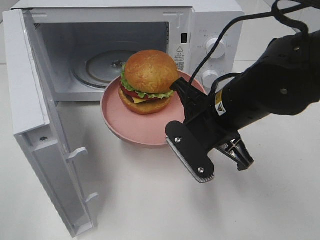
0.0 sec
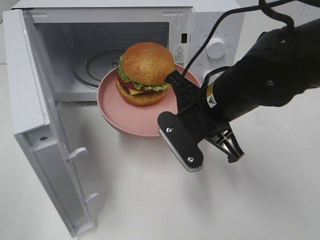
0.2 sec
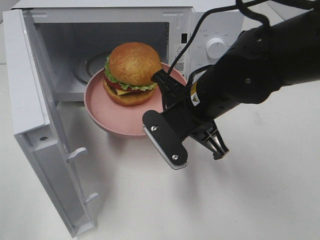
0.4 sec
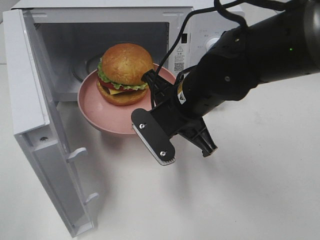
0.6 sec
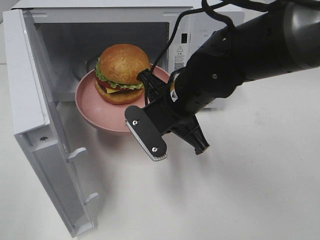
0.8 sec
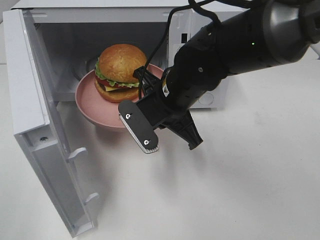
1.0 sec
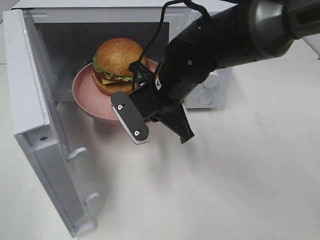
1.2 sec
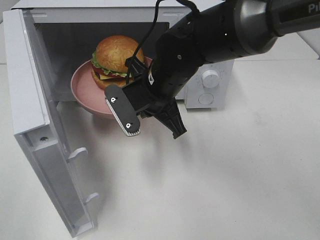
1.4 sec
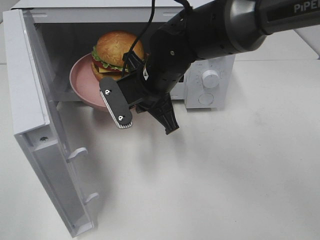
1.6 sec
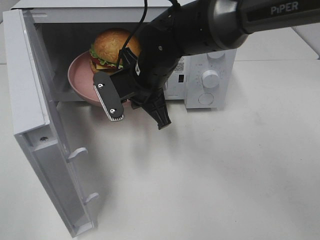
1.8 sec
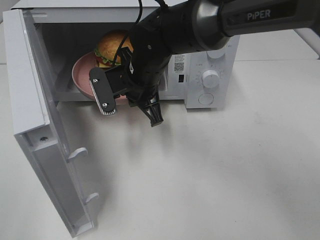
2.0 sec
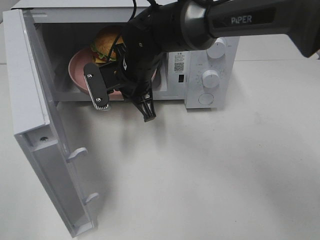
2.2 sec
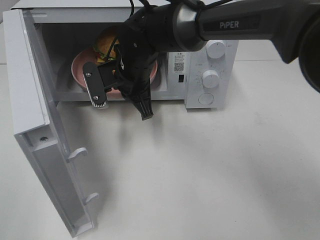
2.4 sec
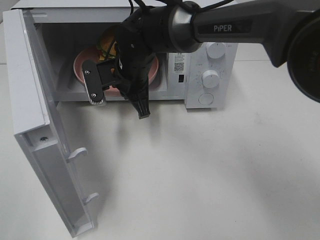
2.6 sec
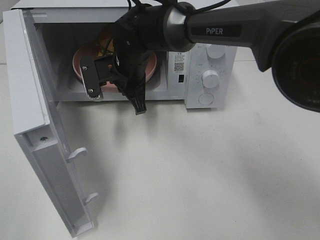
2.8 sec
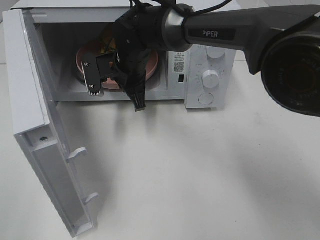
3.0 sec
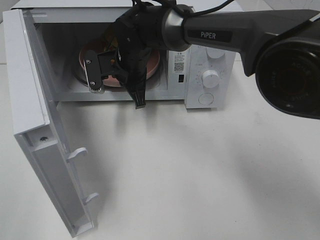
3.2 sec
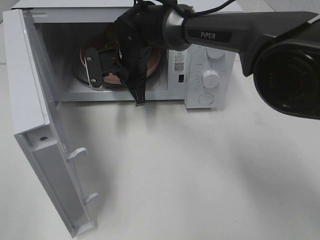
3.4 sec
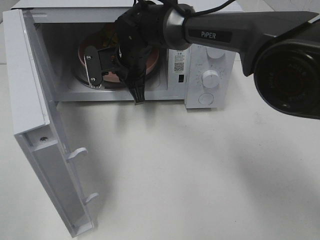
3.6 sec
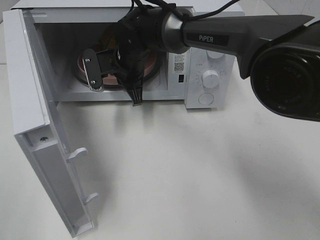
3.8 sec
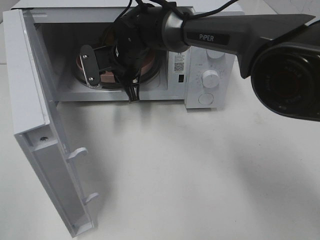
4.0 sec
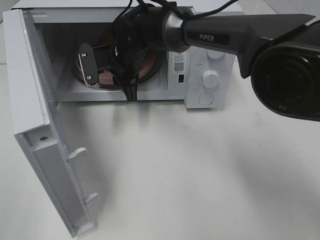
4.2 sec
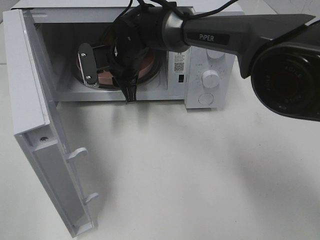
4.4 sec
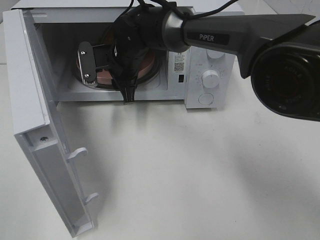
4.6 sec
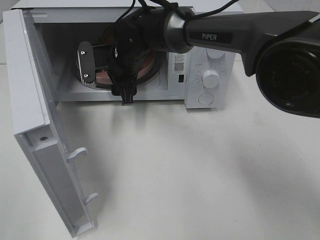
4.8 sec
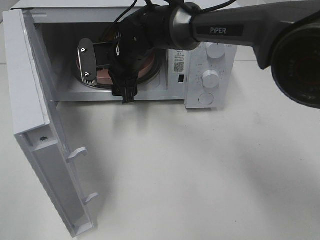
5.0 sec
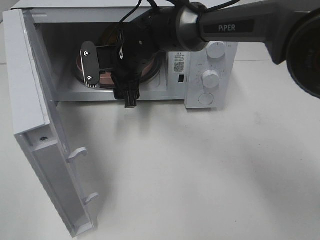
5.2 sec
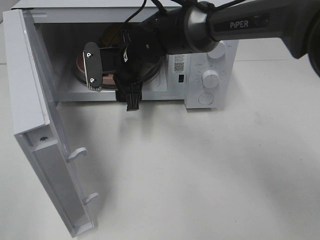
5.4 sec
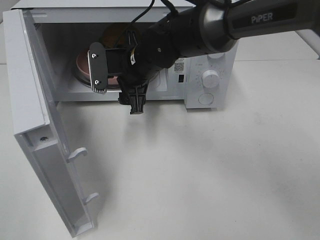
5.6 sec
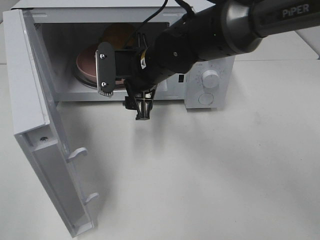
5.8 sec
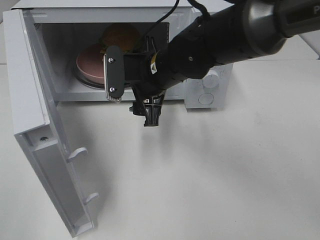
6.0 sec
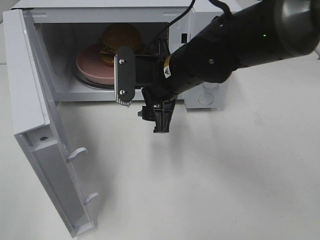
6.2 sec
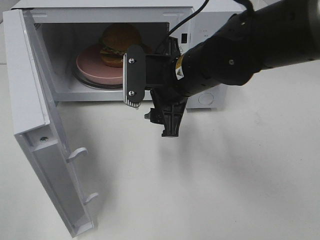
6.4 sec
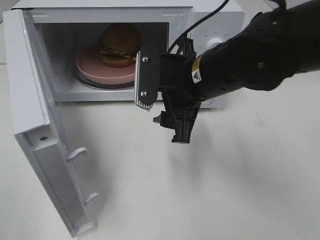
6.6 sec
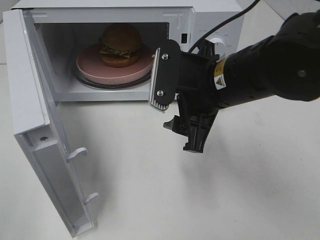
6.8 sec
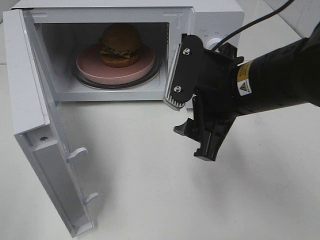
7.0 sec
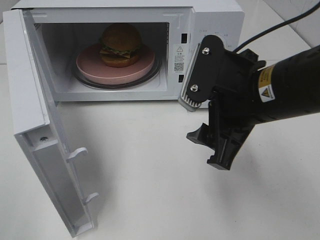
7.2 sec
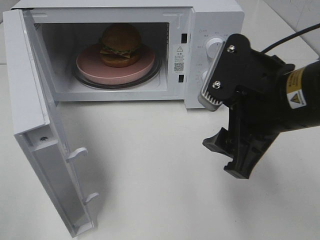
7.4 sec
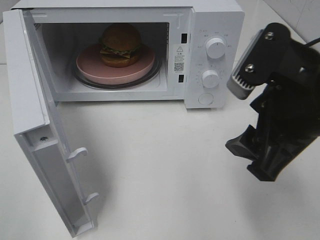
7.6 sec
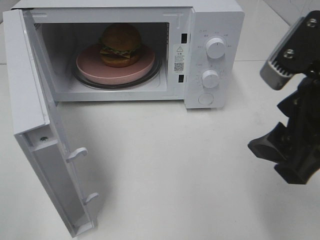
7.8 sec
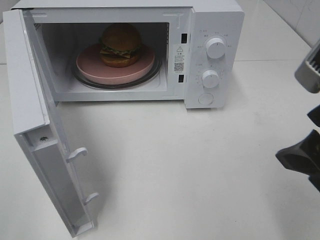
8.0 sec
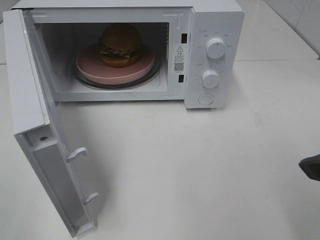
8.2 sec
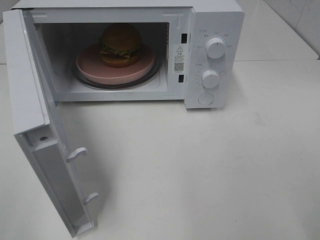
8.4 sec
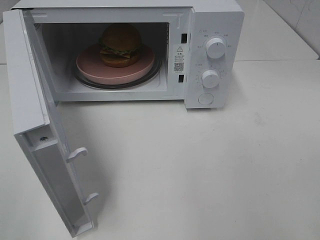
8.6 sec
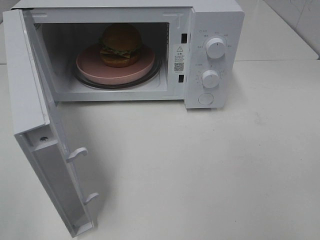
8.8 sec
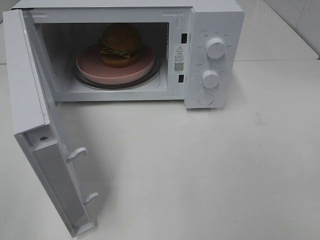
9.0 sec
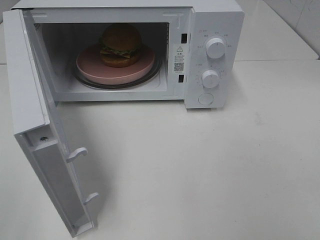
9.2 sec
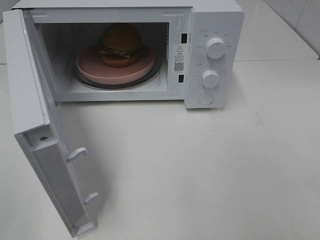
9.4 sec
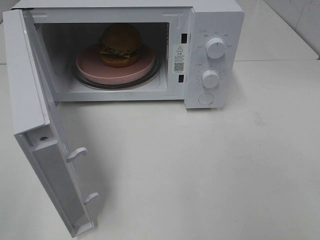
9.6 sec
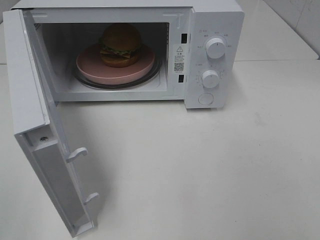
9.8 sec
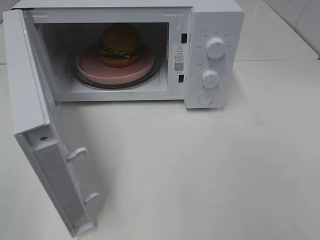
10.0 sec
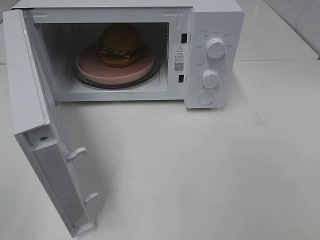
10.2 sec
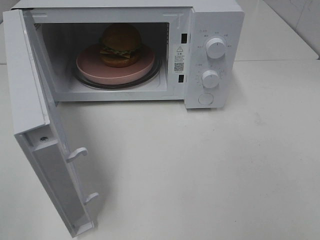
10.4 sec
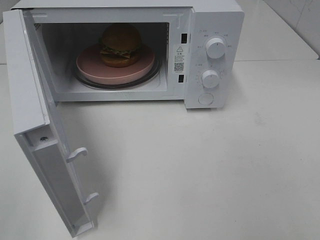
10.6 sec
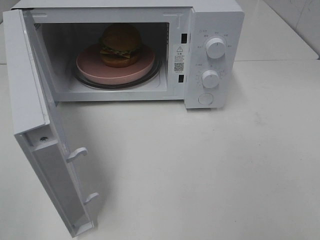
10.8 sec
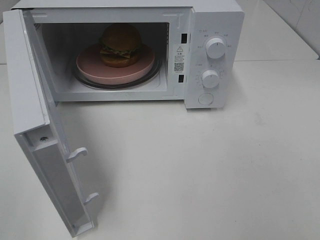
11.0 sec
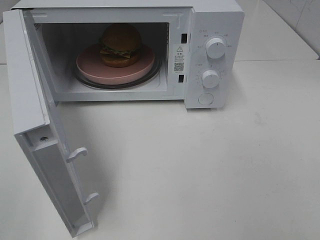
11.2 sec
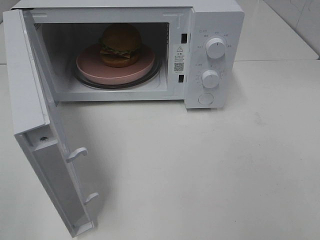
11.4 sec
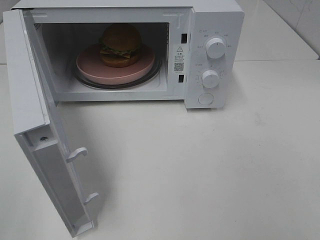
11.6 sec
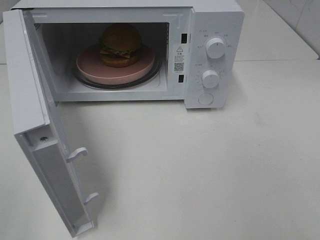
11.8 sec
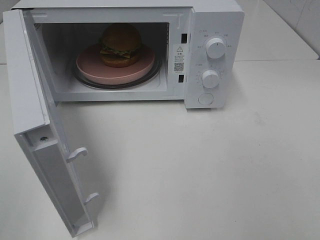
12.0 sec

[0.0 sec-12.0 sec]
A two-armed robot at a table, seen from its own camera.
Task of the whole recording: Heat the burger.
Step, 0.0 sec to 4.2 sec: Right hand: place the plate in the microwave.
0.0 sec to 1.6 sec: The right gripper moves to the left and forward, approximately 15 cm.
1.6 sec to 3.0 sec: The right gripper goes about 10 cm forward.
3.0 sec to 4.4 sec: The right gripper opens.
4.4 sec to 6.0 sec: The right gripper goes approximately 10 cm backward and to the right, and opens.
6.0 sec to 7.6 sec: The right gripper shifts approximately 25 cm backward, to the right and upward.
7.6 sec to 9.0 sec: The right gripper moves backward and to the right, approximately 15 cm.

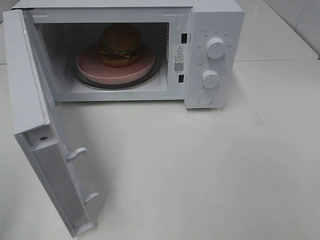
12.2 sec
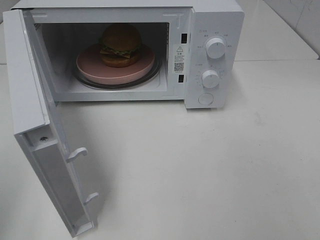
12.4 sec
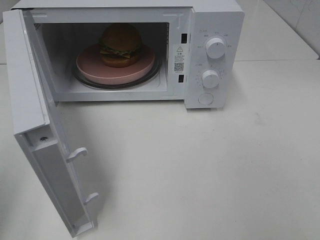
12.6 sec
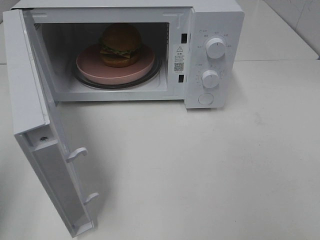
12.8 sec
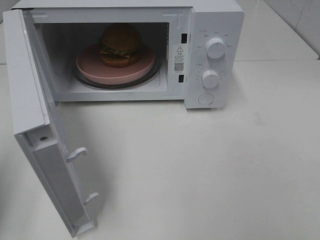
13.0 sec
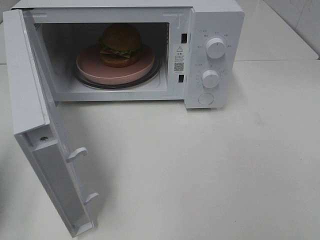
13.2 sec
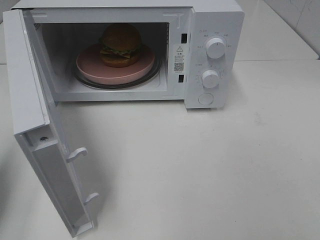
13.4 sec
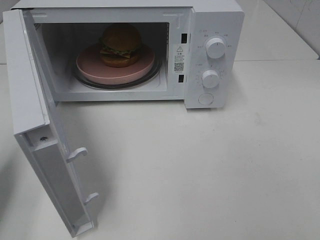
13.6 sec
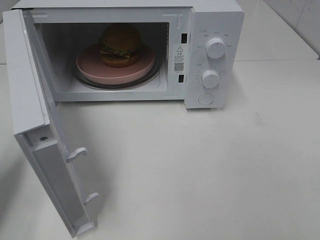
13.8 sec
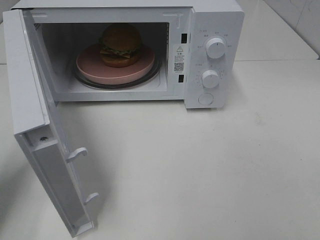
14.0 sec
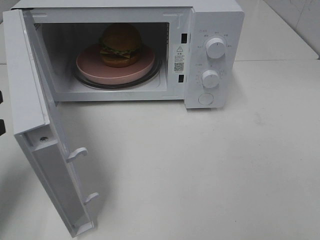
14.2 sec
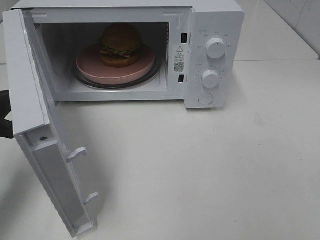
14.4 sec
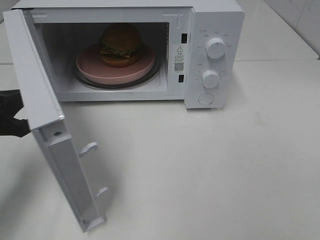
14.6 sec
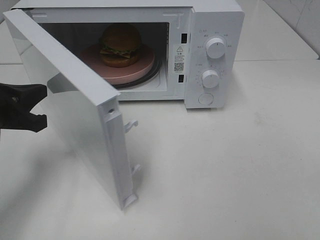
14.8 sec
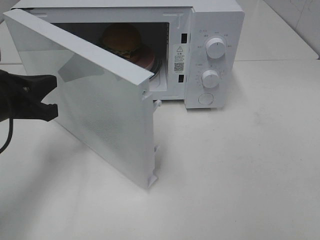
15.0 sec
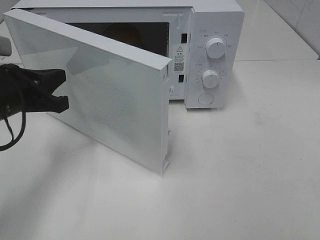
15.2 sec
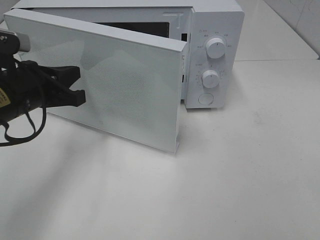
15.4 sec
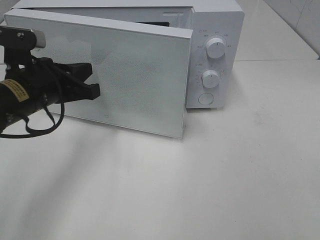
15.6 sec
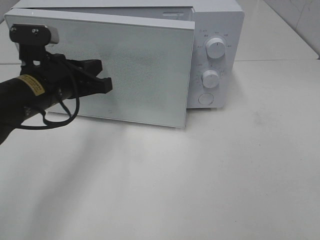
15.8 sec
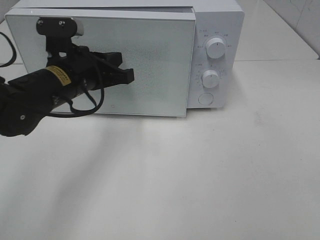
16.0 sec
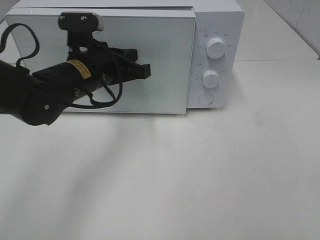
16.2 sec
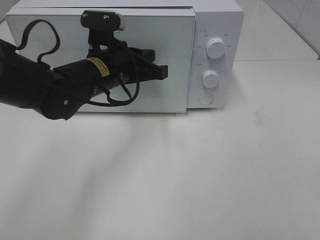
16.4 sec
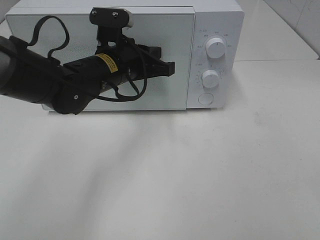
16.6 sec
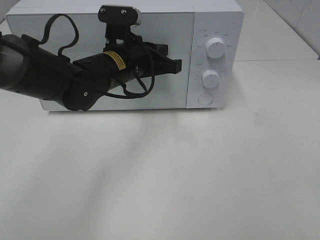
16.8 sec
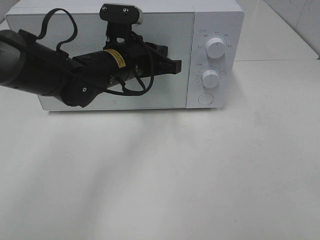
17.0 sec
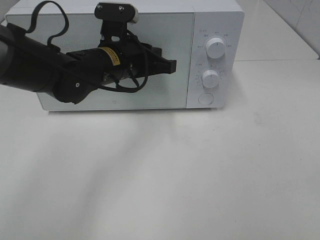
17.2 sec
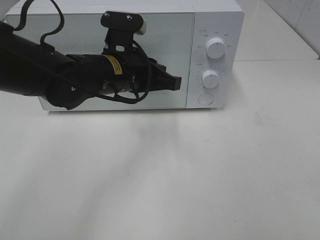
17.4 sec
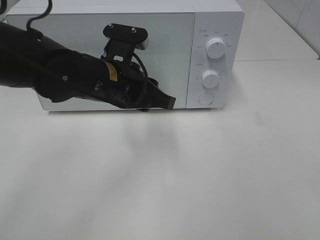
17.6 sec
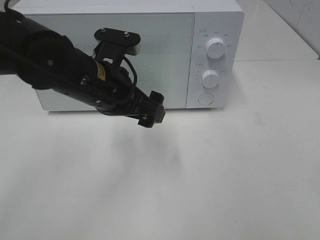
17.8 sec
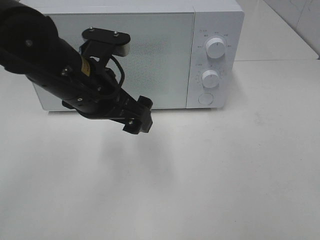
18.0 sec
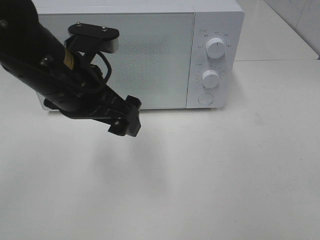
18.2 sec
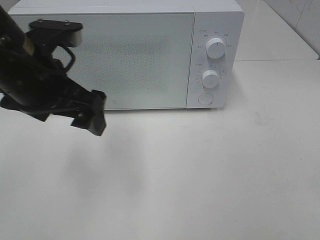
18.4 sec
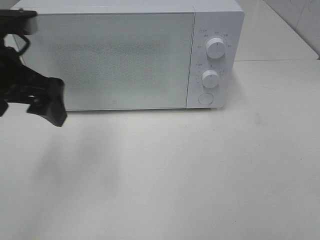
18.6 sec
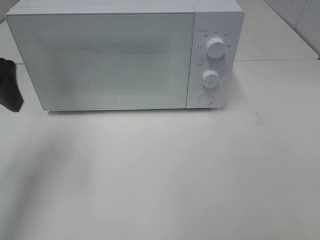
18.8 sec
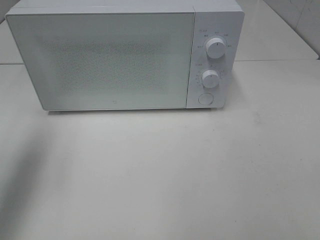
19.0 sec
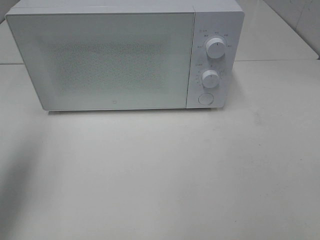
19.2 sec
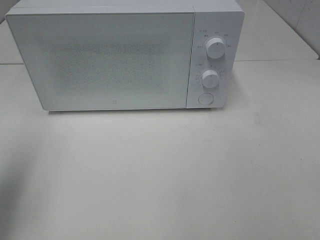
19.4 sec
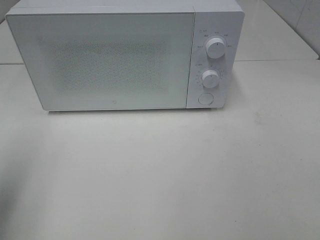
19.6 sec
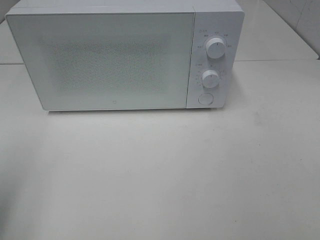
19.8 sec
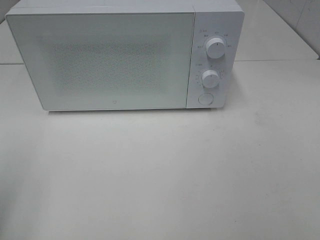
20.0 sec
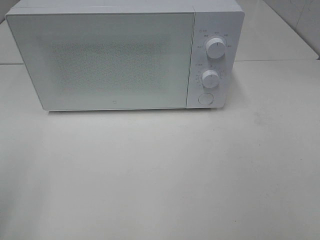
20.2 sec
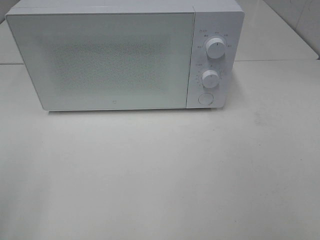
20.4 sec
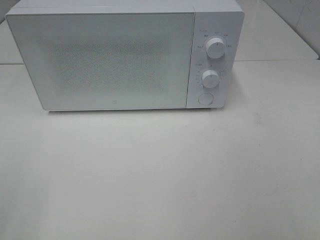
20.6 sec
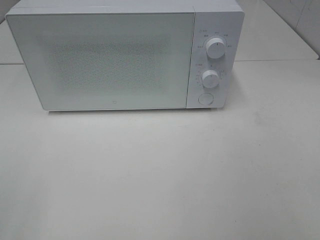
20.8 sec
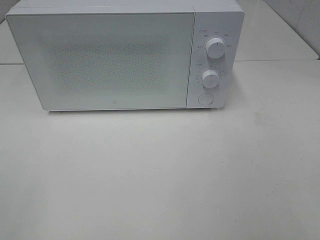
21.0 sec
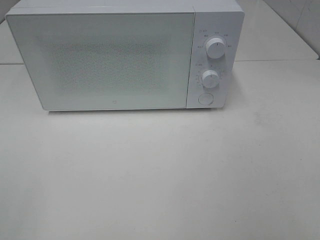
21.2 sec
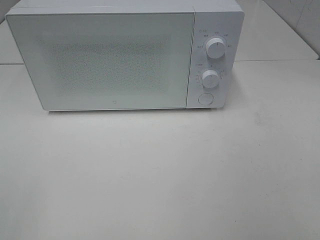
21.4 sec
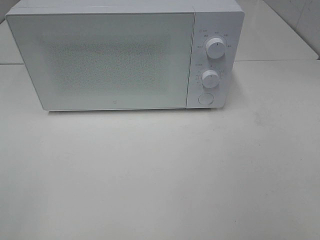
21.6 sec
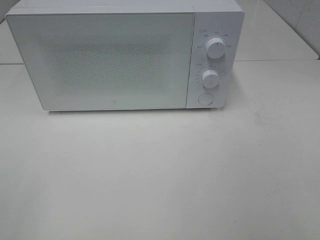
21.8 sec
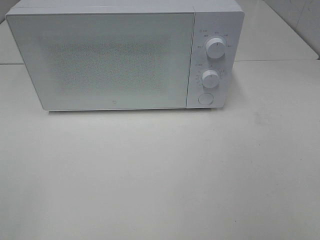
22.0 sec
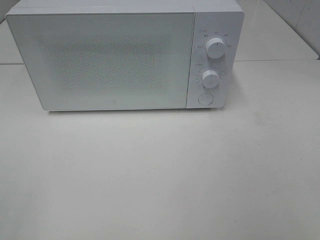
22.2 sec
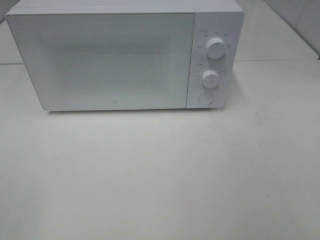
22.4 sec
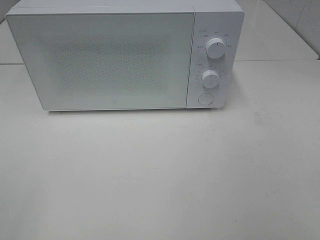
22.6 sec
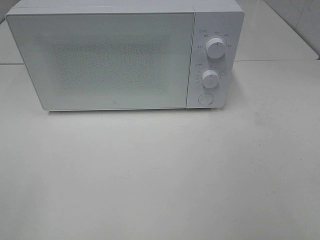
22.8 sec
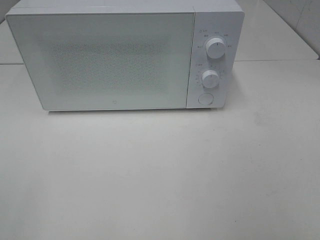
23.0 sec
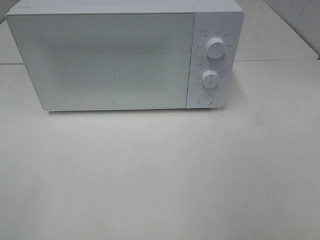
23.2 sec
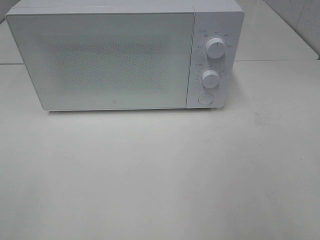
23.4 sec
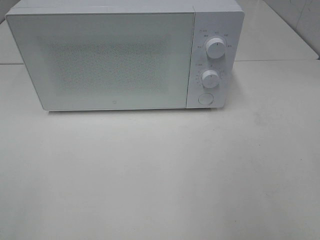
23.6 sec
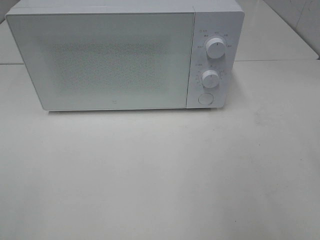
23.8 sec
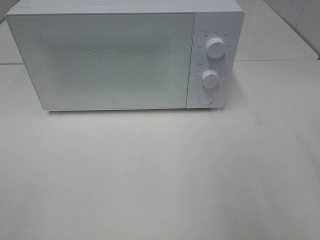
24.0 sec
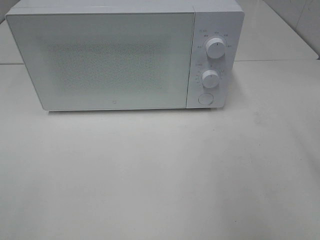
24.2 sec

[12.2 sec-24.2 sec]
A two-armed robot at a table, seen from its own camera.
Task of the whole recording: Heat the burger.
Step, 12.2 sec to 17.2 sec: Left hand: close the microwave door.
12.2 sec to 13.8 sec: The left gripper goes roughly 20 cm forward and downward, and closes up.
13.8 sec to 15.2 sec: The left gripper moves to the right and forward, some 10 cm.
15.2 sec to 16.6 sec: The left gripper heads to the right and forward, covering roughly 20 cm.
16.6 sec to 18.2 sec: The left gripper moves backward and upward, about 10 cm, and opens up.
18.2 sec to 19.8 sec: The left gripper goes some 25 cm to the left and backward.
19.8 sec to 21.2 sec: The left gripper heads backward, covering about 15 cm.
21.2 sec to 22.6 sec: Both grippers stay put.
